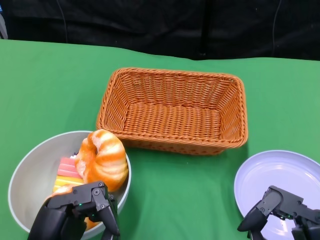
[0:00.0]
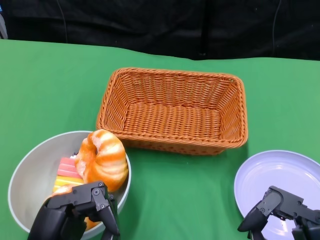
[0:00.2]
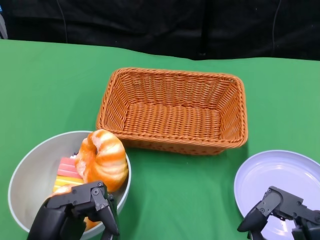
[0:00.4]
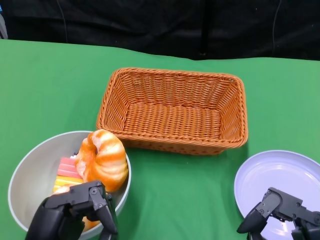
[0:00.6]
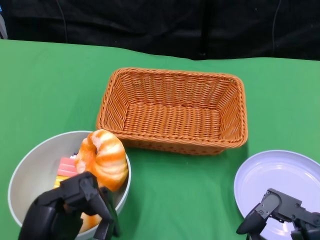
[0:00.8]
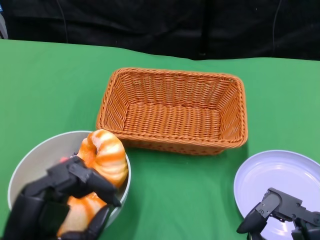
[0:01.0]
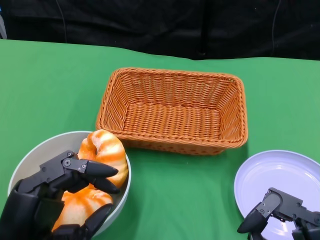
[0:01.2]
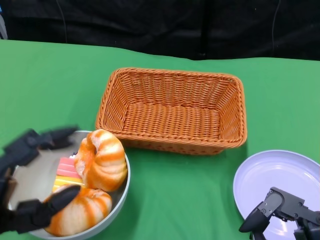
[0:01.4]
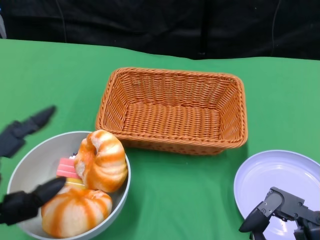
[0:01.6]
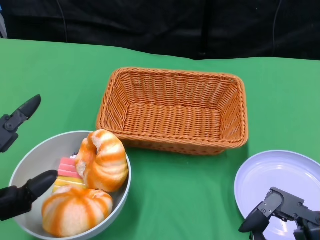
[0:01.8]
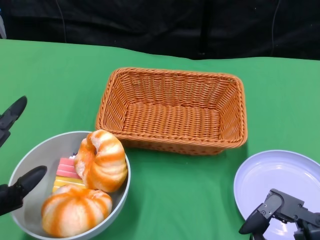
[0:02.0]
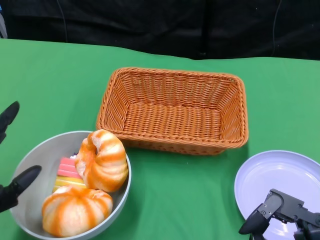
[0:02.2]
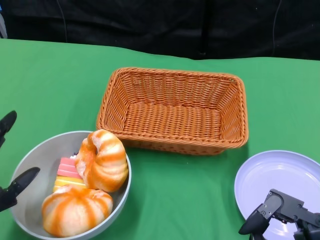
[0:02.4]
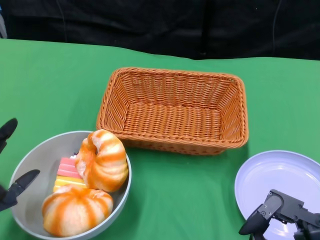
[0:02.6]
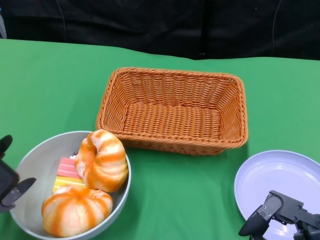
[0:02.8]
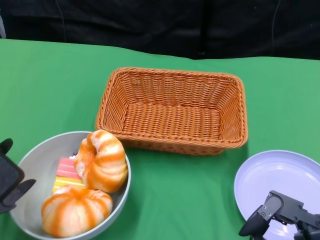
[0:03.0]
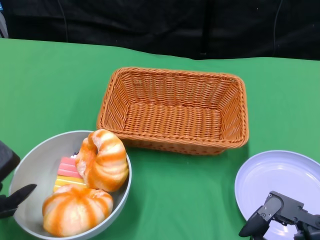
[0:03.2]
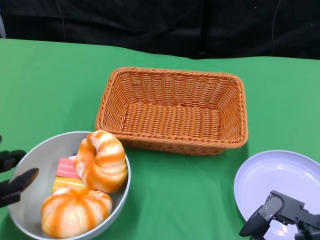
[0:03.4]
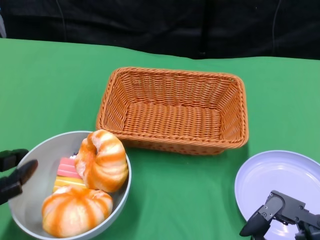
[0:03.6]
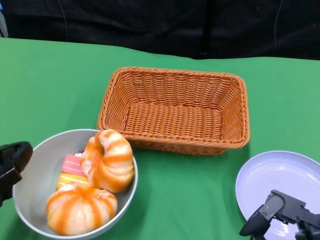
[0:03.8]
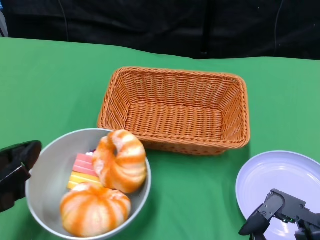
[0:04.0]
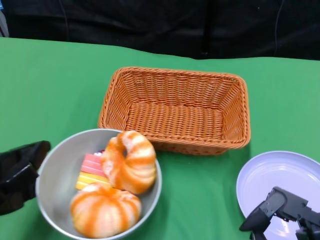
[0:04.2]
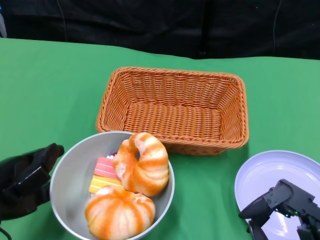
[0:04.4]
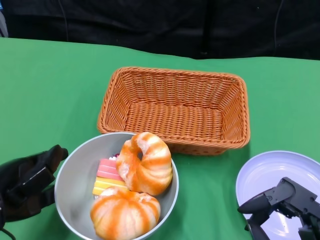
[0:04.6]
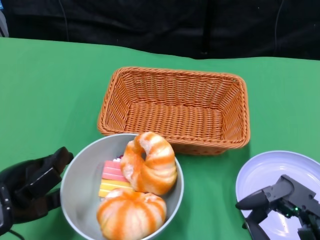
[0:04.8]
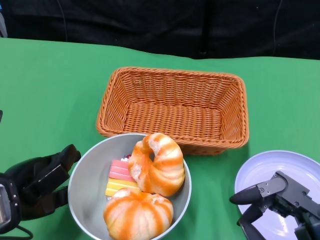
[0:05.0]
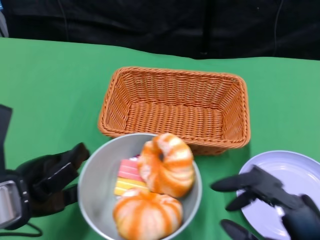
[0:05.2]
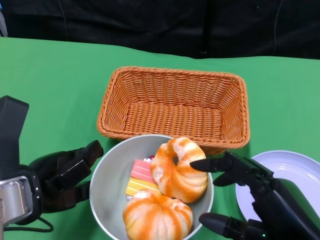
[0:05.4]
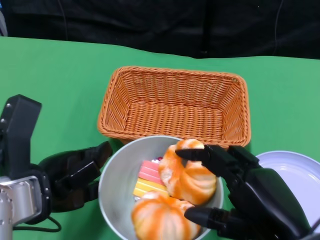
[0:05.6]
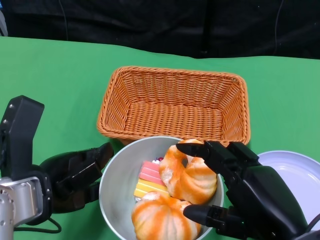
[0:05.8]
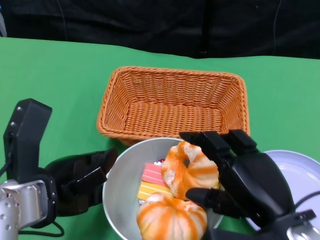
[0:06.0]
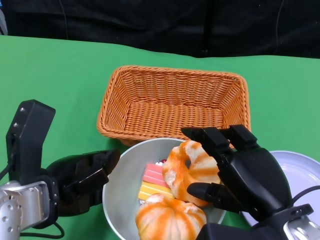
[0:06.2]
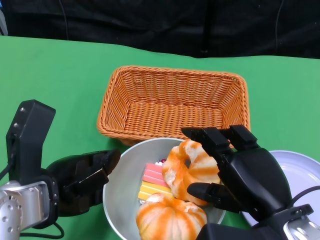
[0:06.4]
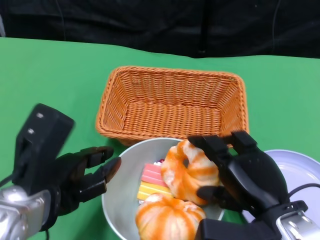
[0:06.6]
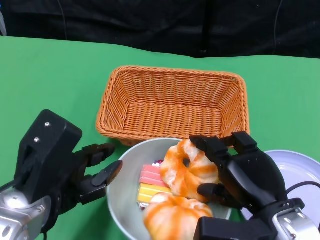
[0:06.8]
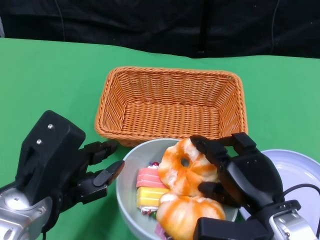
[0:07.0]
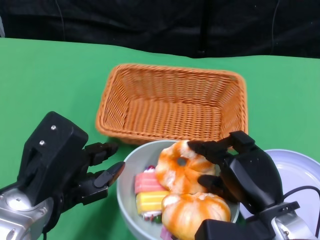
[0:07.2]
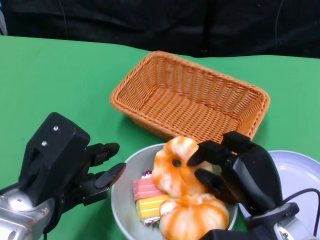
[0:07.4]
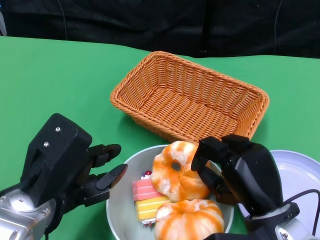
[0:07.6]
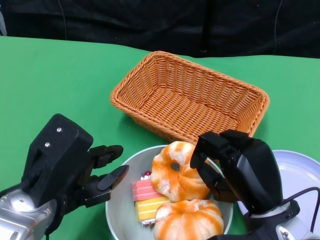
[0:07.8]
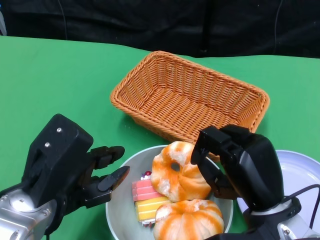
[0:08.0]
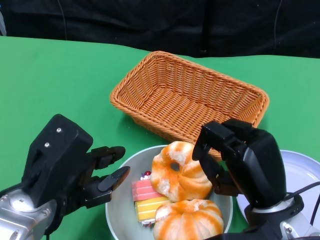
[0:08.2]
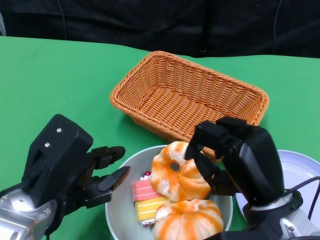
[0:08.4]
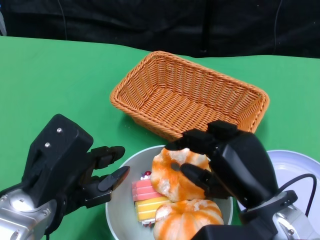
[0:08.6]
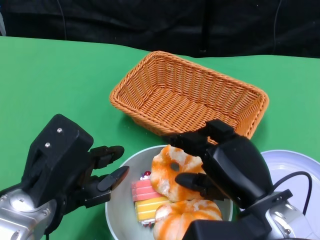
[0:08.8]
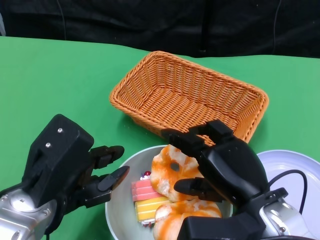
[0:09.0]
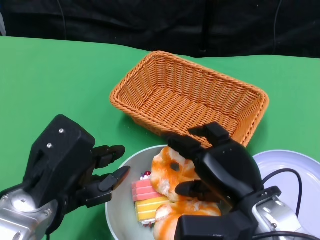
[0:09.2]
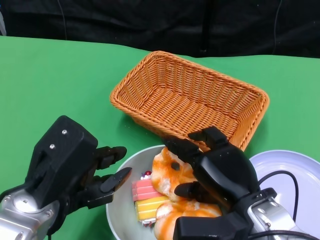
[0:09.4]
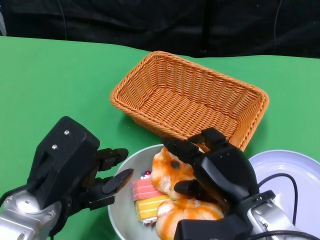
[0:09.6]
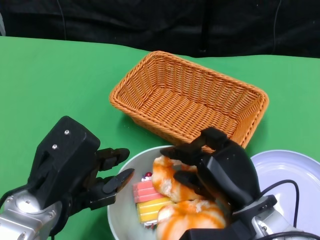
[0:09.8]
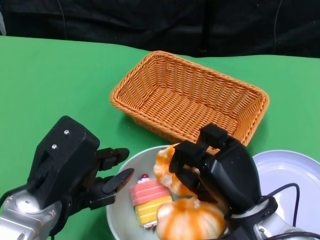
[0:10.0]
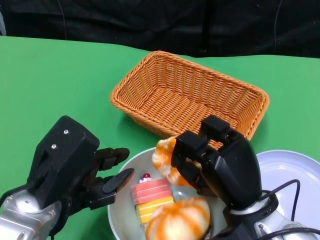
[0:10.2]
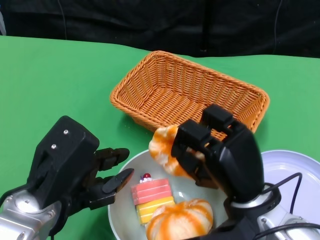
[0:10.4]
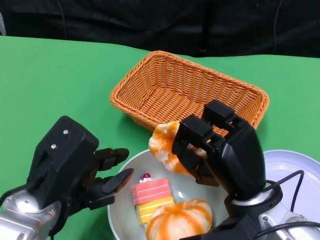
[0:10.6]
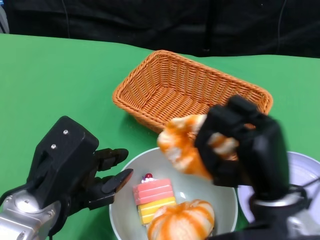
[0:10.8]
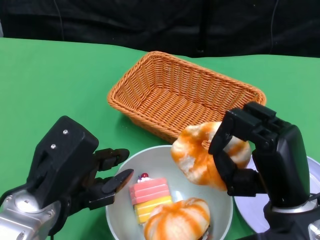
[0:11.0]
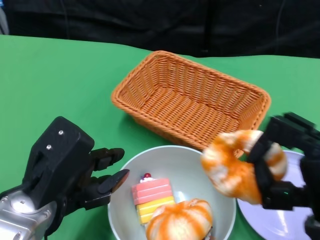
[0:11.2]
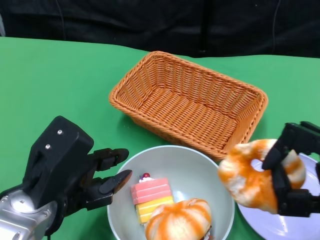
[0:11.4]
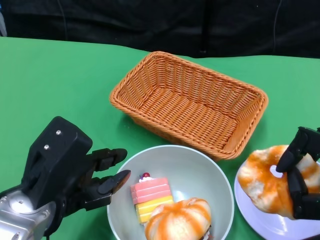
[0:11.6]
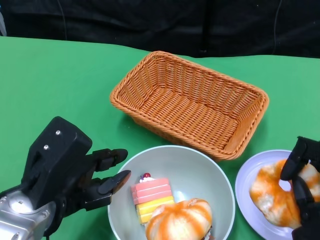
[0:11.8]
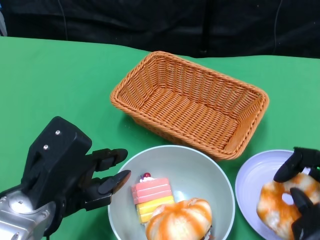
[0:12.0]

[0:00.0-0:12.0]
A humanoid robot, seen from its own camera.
Step, 0:00.0 to 0:05.2: Push the bowl to the center of the table using the left gripper.
0:04.4 to 0:06.0: The left hand shifts roughly 5 cm to the right. Meanwhile the right hand is displaced forward by approximately 5 cm.
0:06.0 to 0:07.6: The right hand goes about 5 cm downward.
0:07.6 to 0:09.0: The right hand shifts some 5 cm upward.
0:10.4 to 0:12.0: The right hand goes some 15 cm to the right and backward.

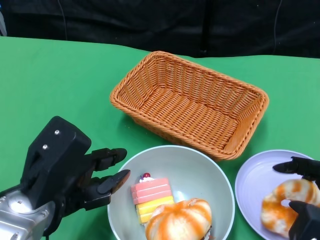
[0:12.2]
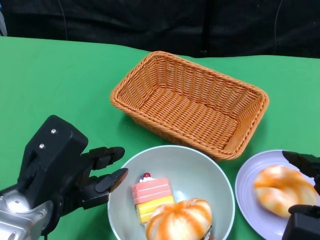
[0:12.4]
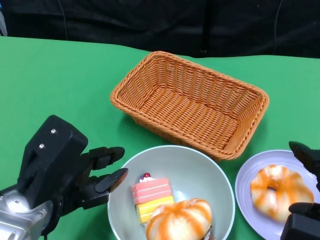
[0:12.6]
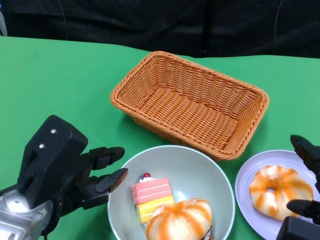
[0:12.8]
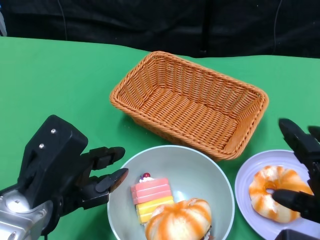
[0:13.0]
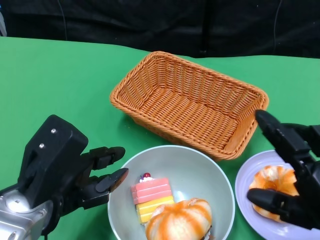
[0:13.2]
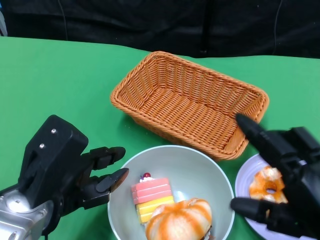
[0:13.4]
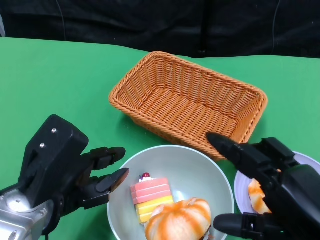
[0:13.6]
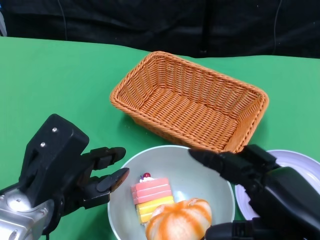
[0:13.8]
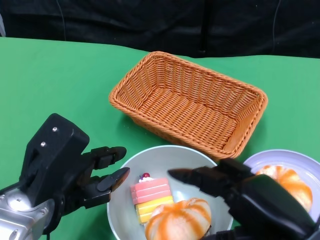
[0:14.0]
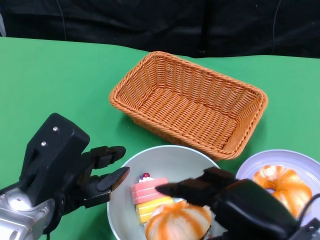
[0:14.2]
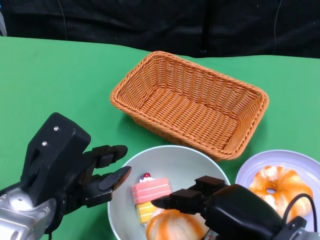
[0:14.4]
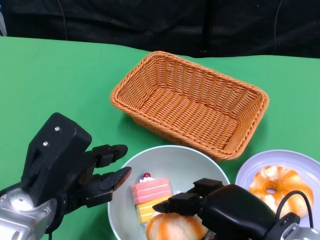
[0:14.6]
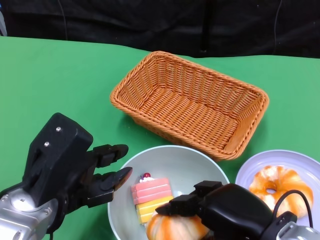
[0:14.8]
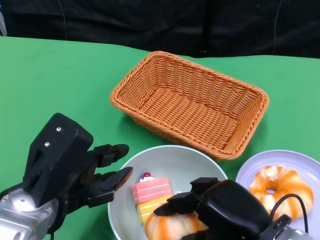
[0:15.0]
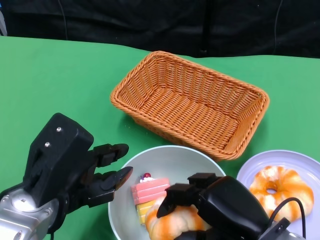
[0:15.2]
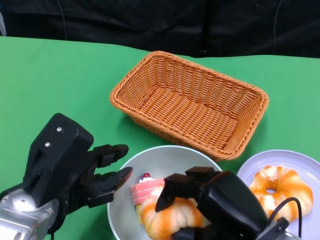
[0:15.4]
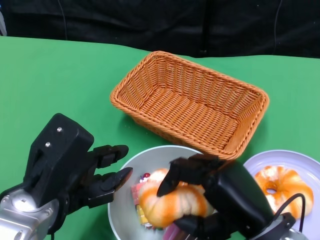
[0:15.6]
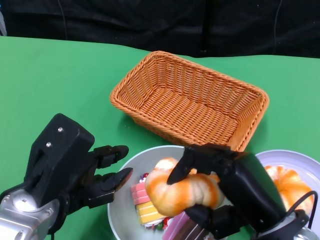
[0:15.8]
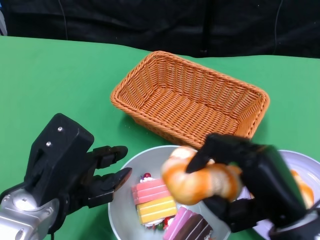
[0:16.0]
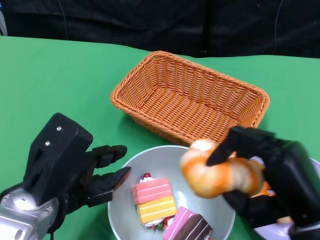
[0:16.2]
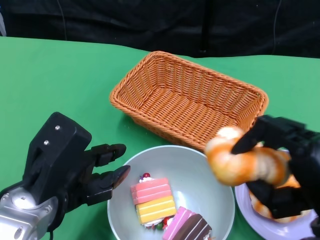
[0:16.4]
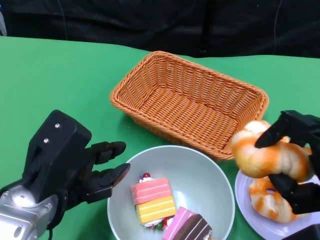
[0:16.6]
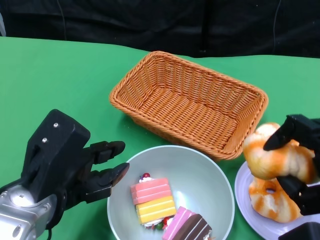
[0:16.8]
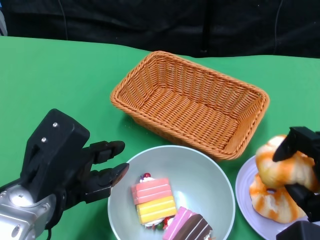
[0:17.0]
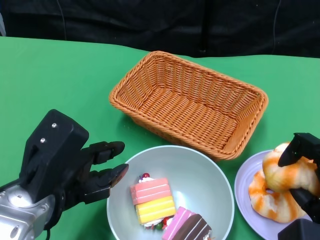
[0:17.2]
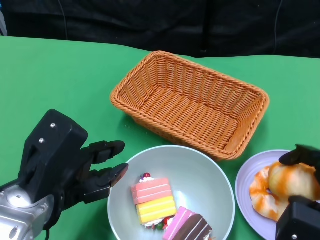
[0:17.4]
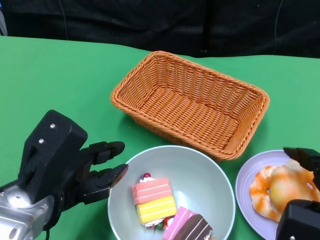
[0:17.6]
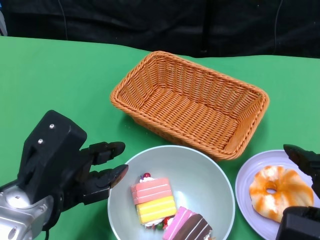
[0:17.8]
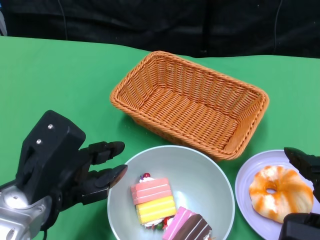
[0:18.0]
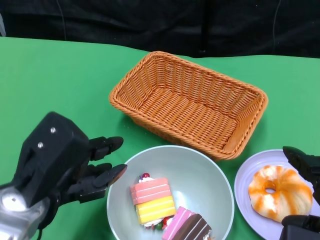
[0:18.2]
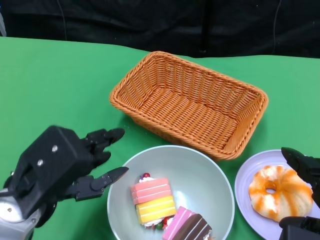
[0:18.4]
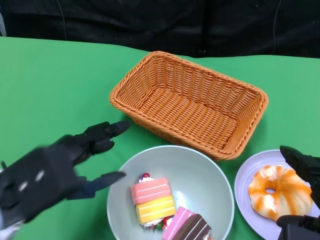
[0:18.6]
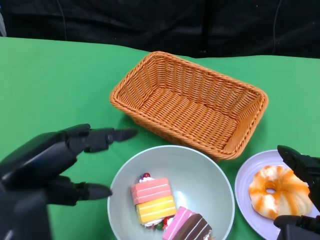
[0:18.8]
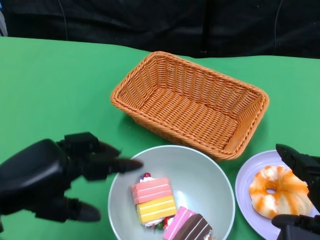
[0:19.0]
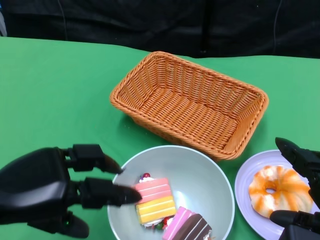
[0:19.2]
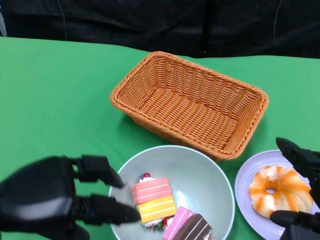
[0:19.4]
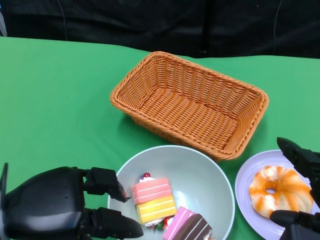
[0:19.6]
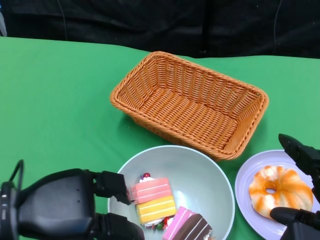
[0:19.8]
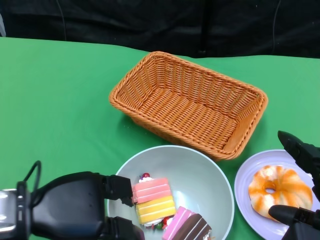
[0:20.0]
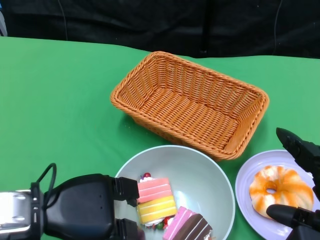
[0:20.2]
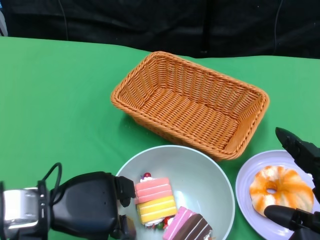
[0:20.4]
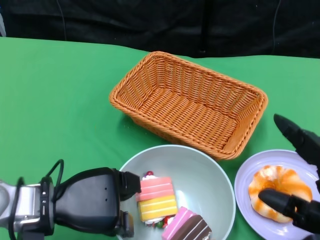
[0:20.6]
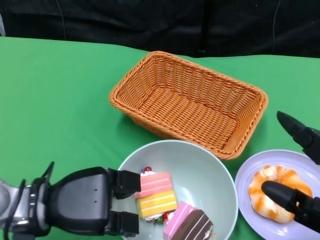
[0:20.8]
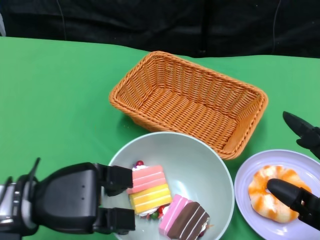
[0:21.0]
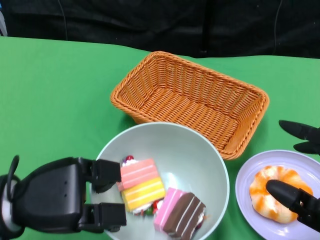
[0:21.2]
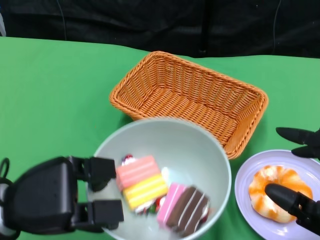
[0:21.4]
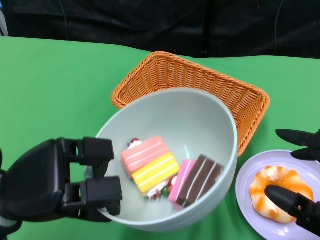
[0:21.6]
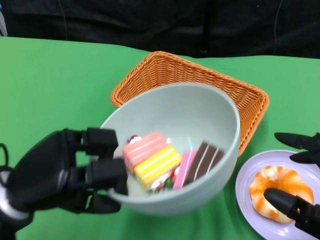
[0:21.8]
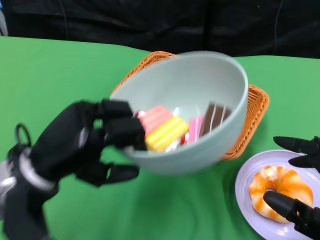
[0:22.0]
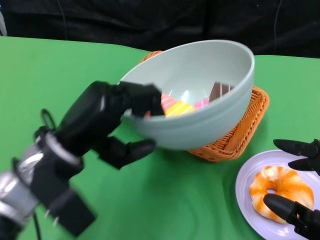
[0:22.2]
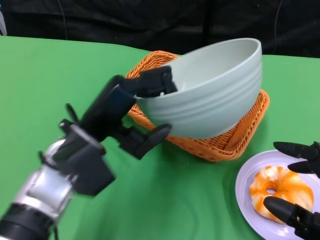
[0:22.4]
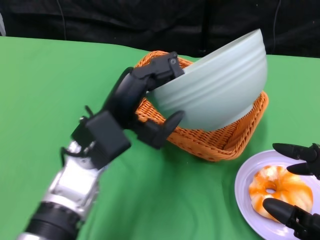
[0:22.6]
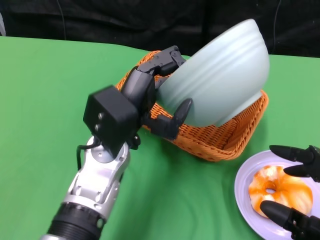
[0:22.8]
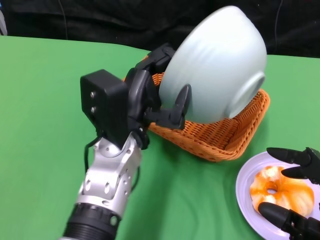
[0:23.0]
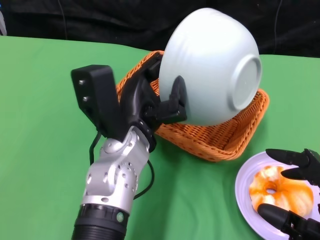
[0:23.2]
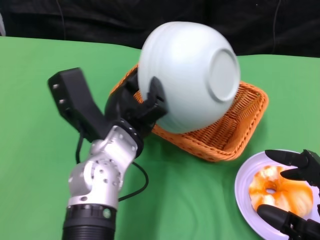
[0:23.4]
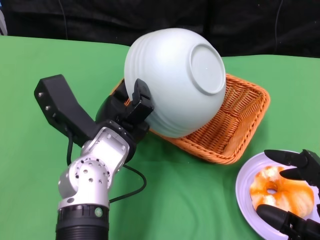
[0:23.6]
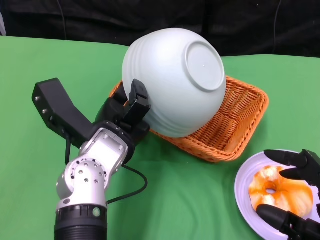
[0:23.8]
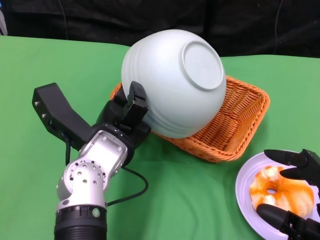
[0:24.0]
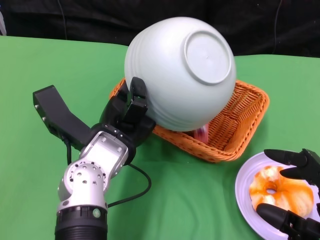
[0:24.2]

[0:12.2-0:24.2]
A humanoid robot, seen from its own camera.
Step, 0:12.2 to 0:17.8: Pick up the bread with the right gripper and place it on the plate.
Step, 0:18.2 to 0:20.8: Grasp the bowl with the left gripper.
0:12.2 to 0:13.8: The right hand travels to the left by about 5 cm.
0:13.8 to 0:15.2: The right hand is displaced downward and to the left by about 10 cm.
0:15.2 to 0:16.6: The right hand travels to the right by approximately 10 cm.
0:21.2 to 0:22.6: The left hand moves to the right and forward, approximately 15 cm.
